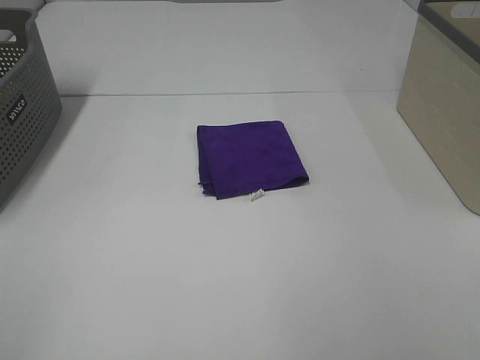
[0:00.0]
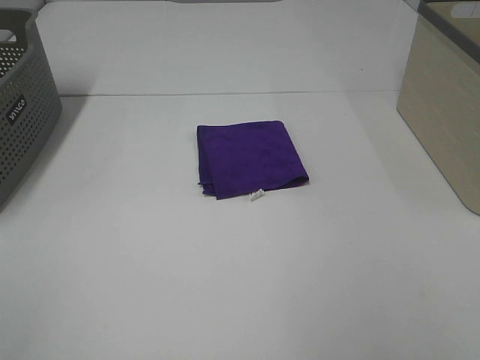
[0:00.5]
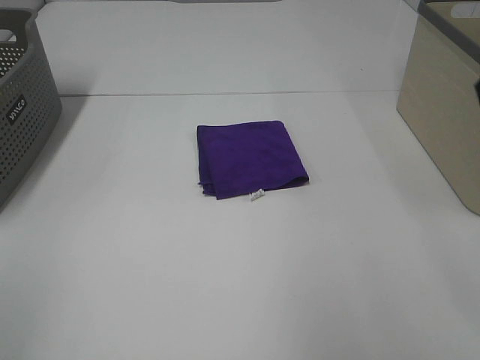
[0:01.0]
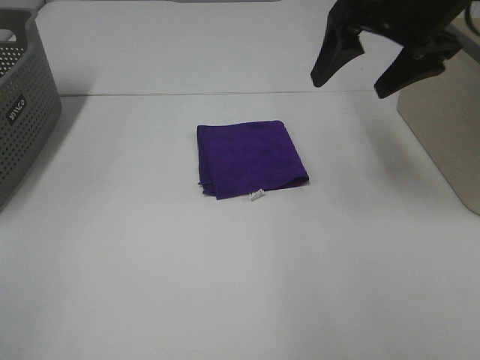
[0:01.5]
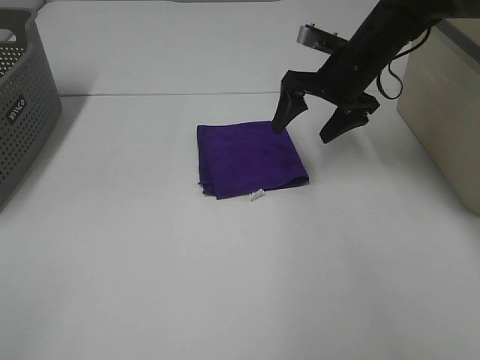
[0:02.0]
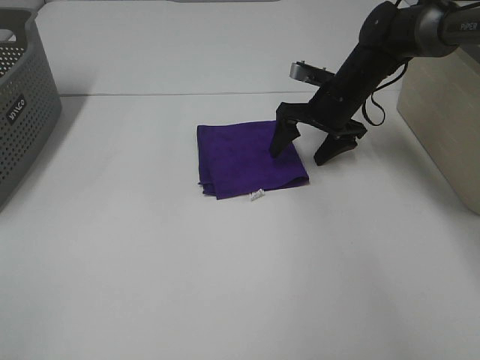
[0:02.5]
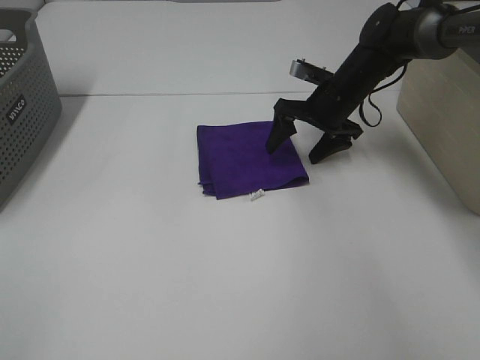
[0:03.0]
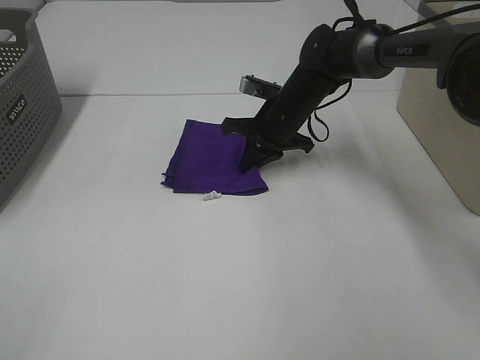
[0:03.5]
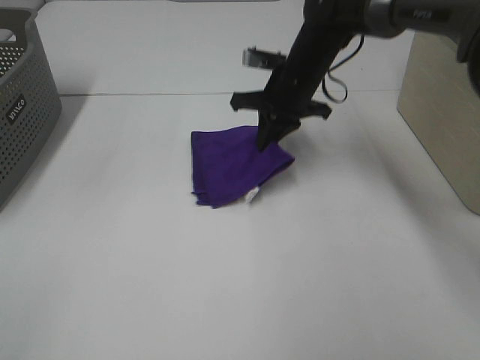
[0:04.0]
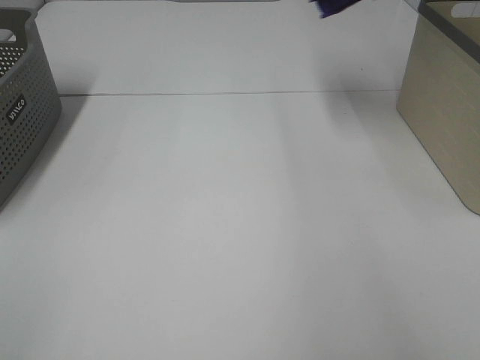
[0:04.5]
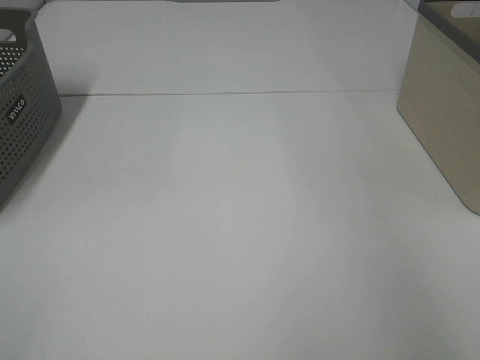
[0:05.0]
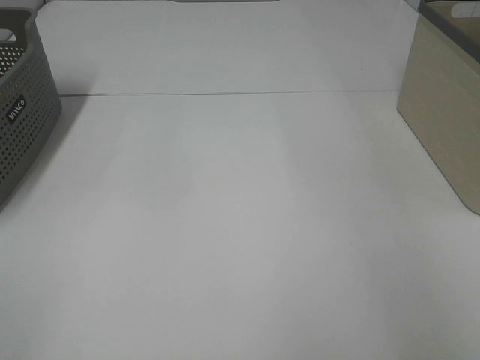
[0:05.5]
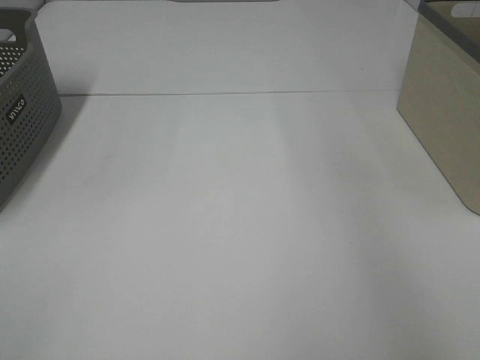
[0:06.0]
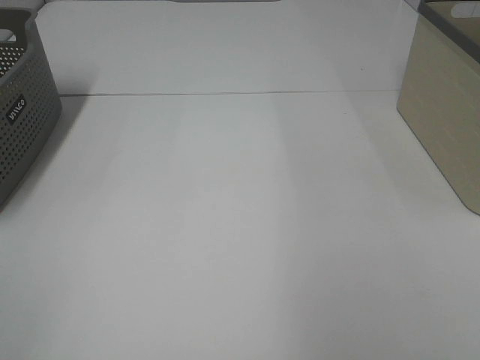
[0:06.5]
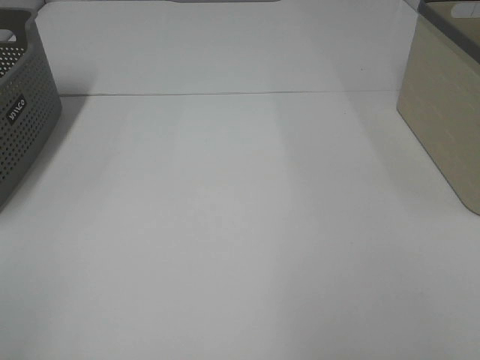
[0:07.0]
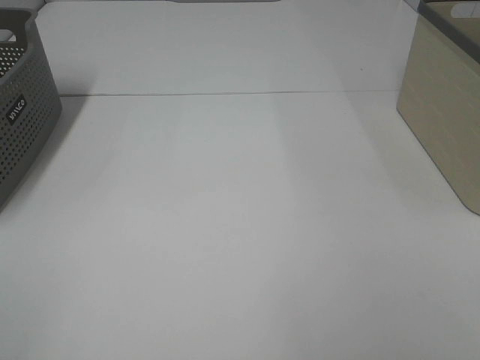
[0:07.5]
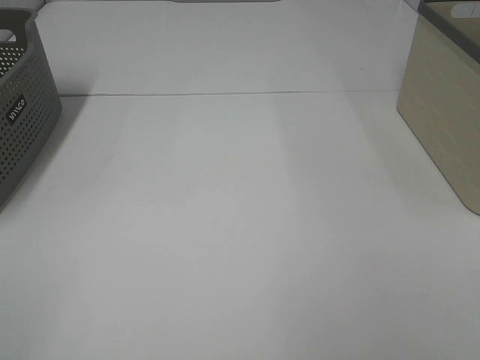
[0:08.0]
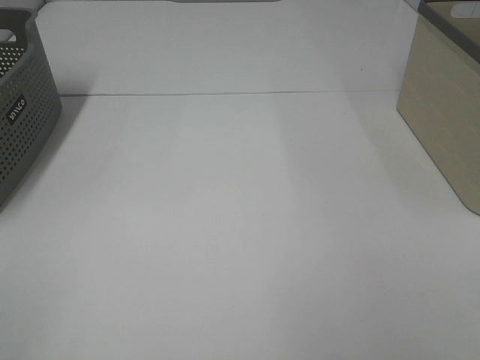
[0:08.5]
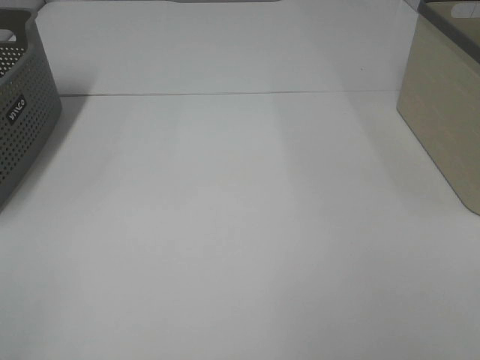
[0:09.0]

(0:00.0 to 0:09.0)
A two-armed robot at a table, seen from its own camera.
Step, 0:00.0 - 0:03.5: Right hand: grab the folded purple towel.
Step, 0:04.0 - 0:05.5: Right hand: place the purple towel in right basket.
0:00.0 - 0:02.0: The right gripper goes roughly 50 cm forward.
0:02.0 - 0:04.5: The right gripper heads upward, covering roughly 25 cm, and closes its fingers.
0:04.5 - 0:07.0: The right gripper heads backward, covering approximately 40 cm, and opens its fingers.

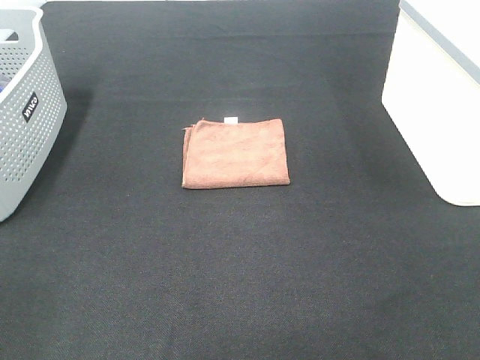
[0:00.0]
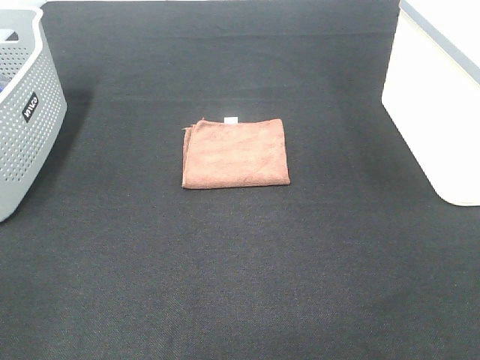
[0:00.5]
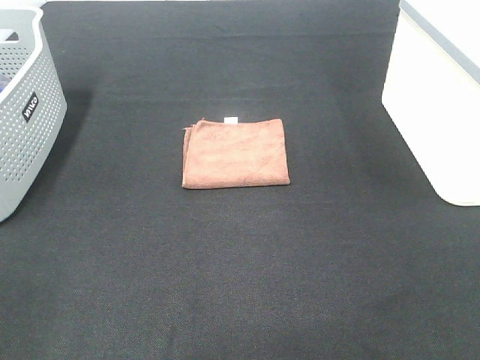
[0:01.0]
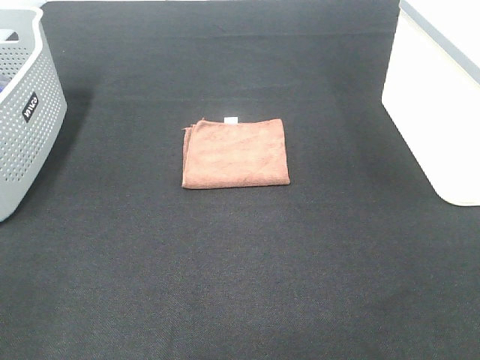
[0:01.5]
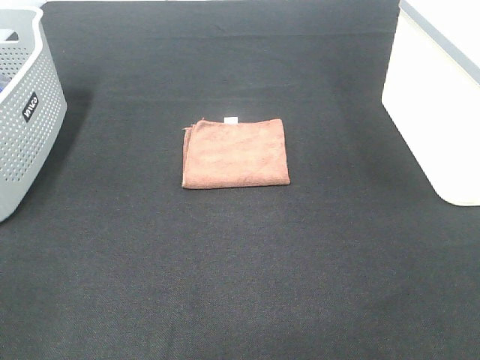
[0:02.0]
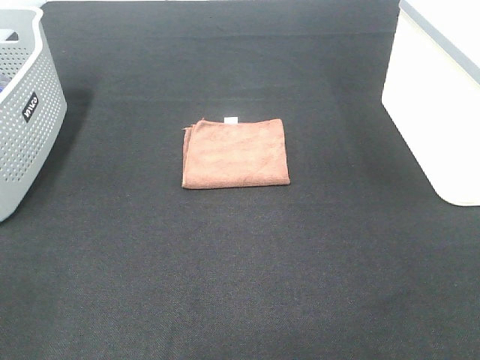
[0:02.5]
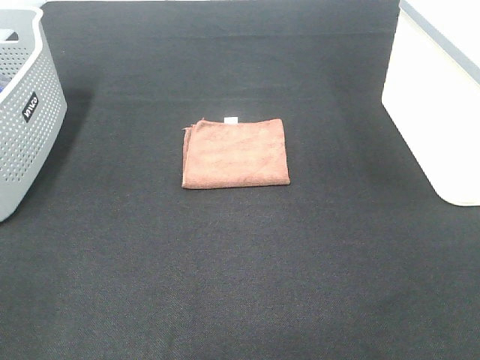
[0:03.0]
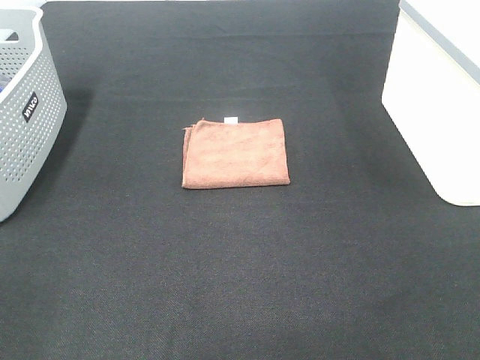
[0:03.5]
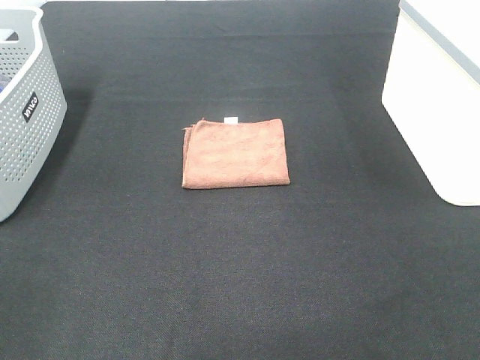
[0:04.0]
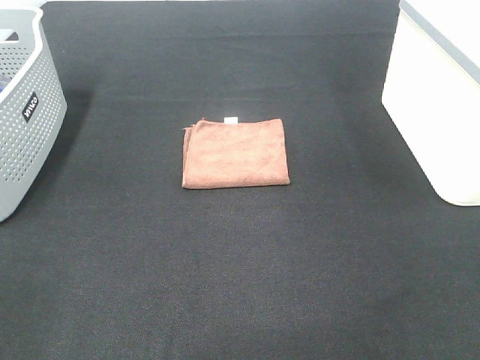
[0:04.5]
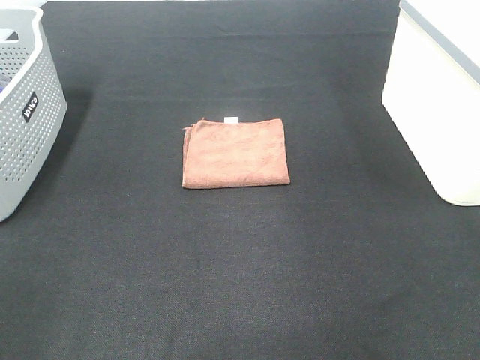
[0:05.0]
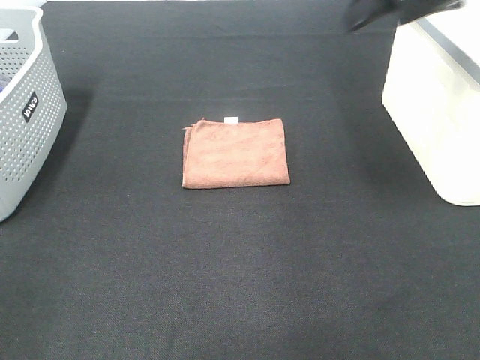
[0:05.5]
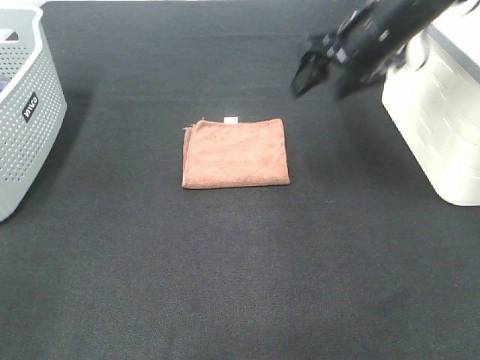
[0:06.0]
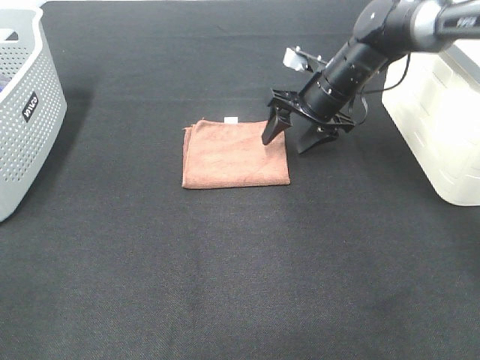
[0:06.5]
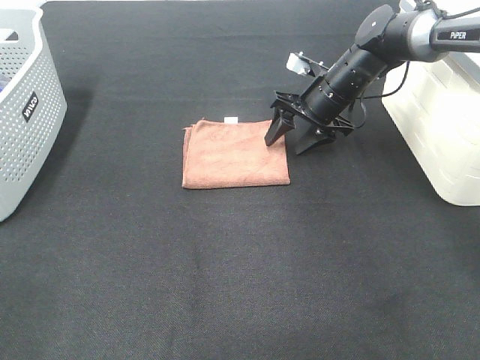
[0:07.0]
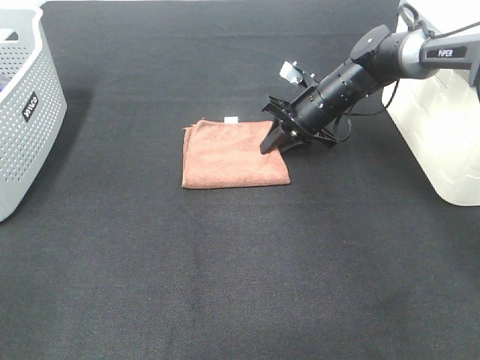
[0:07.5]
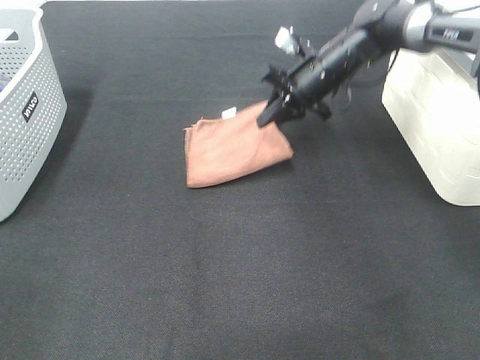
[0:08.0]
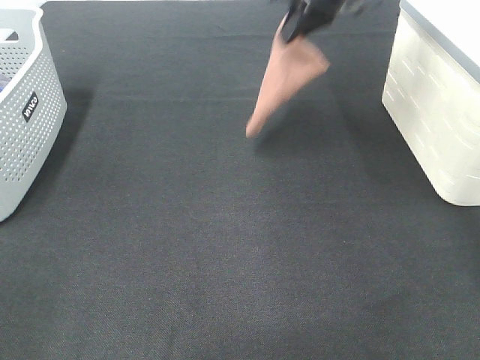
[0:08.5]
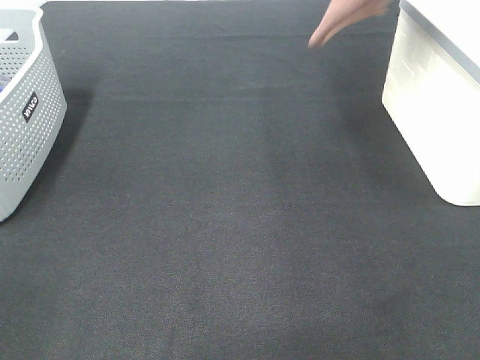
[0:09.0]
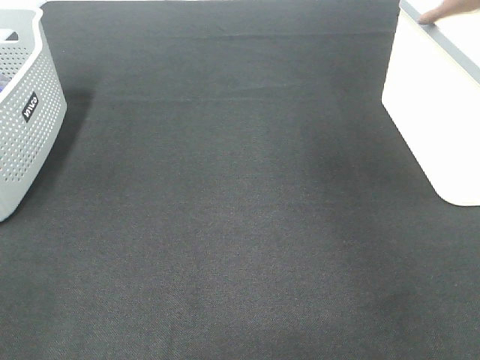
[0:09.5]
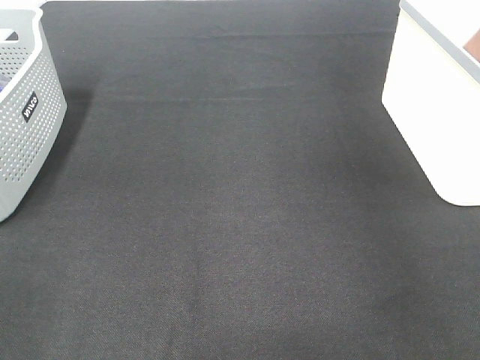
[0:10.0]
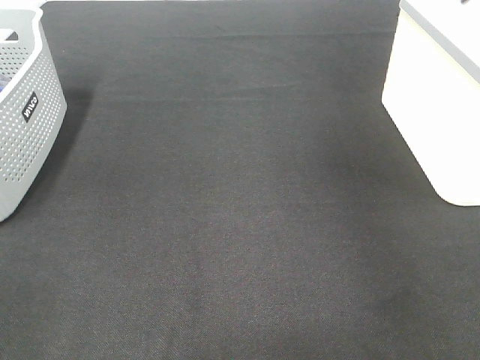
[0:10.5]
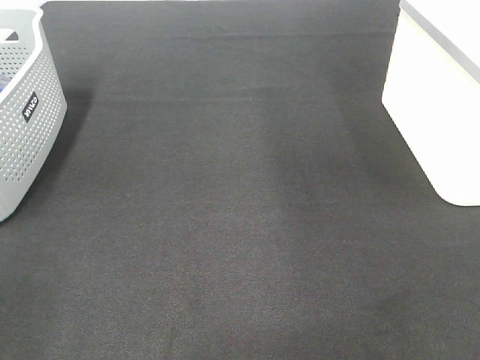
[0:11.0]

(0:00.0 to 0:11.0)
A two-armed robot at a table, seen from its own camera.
Step, 0:00.0 - 0:07.5: Right hand: grab the folded brown towel.
Step, 0:08.0 - 0:10.5: Right hand: place the brown towel in right basket.
0:00.0 - 0:03.5: Neither gripper changes place.
0:03.5 - 0:05.5: The right gripper shifts roughly 35 cm forward.
0:05.5 - 0:07.5: The right gripper travels downward and forward by about 30 cm, and closes up.
0:07.5 - 0:09.0: The right gripper shifts about 35 cm upward.
0:09.0 - 0:11.0: The right gripper travels to the right and back again, some 15 cm each way, and opens up.

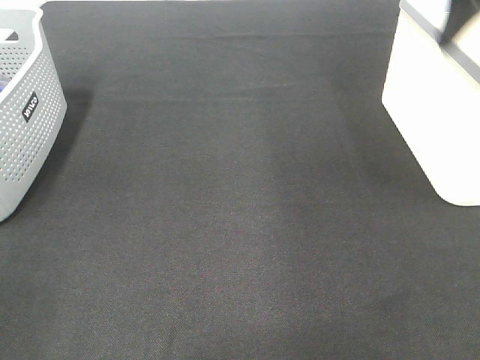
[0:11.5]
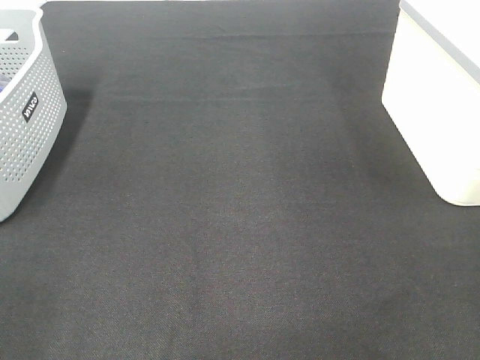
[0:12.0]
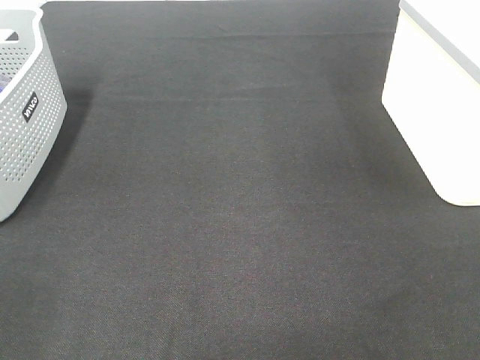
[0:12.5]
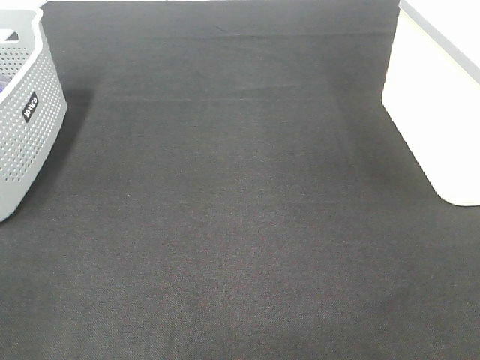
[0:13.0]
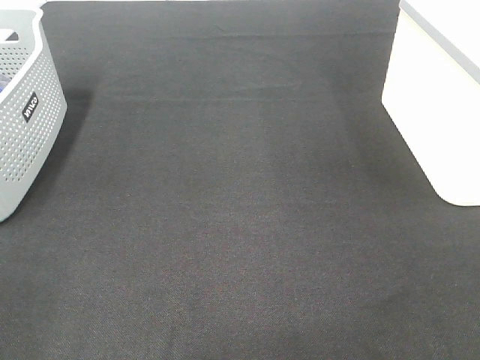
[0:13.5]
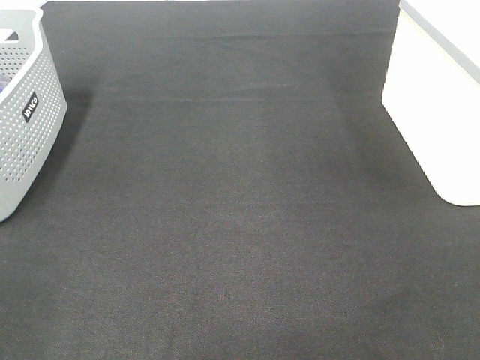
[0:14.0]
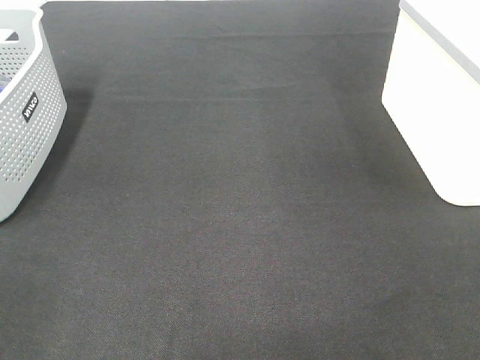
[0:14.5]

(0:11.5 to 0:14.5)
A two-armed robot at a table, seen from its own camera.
0:11.5 - 0:13.0: The right gripper moves backward, about 30 cm.

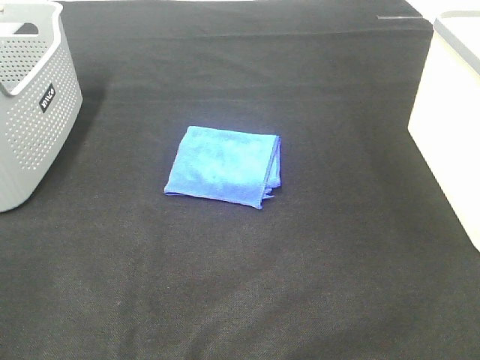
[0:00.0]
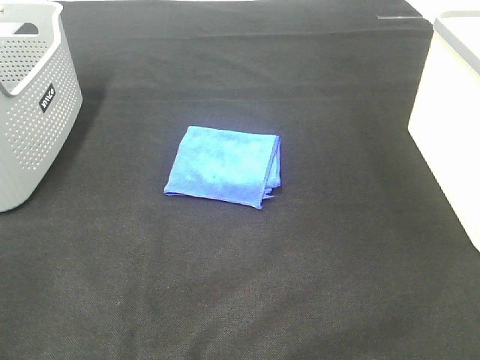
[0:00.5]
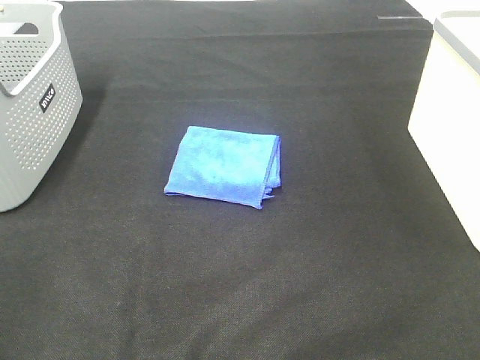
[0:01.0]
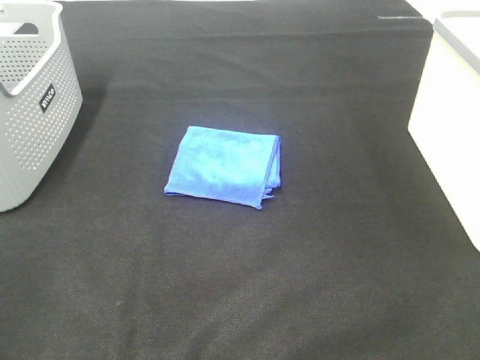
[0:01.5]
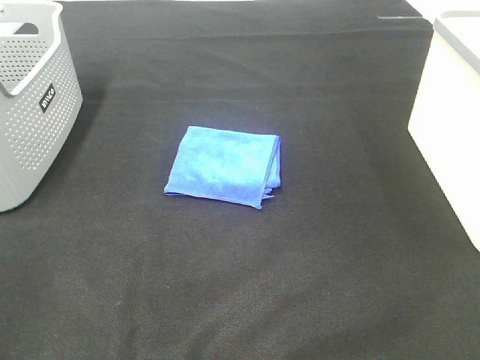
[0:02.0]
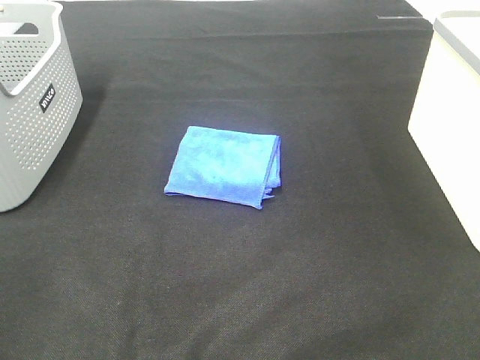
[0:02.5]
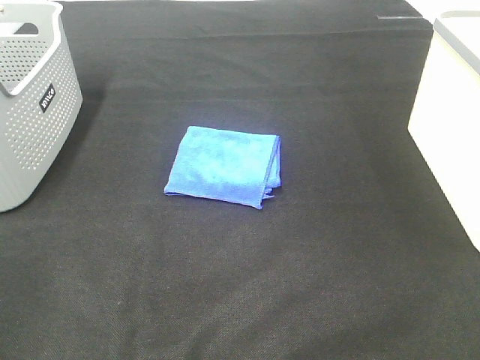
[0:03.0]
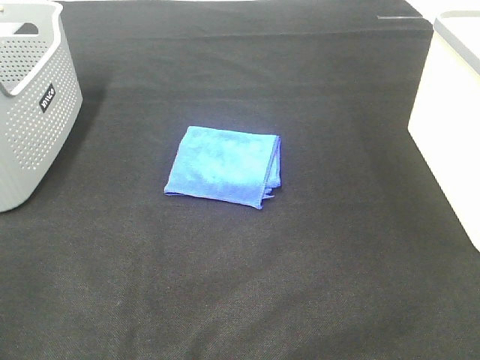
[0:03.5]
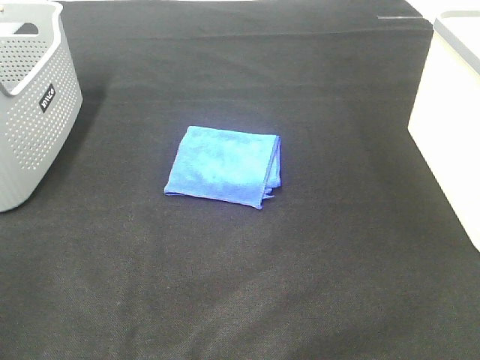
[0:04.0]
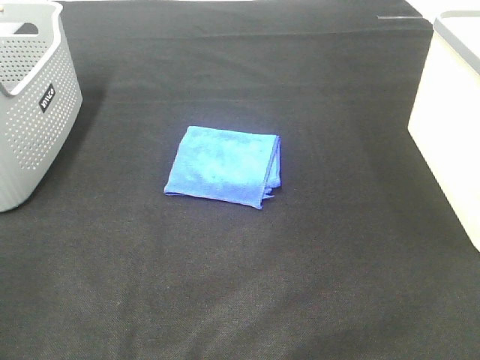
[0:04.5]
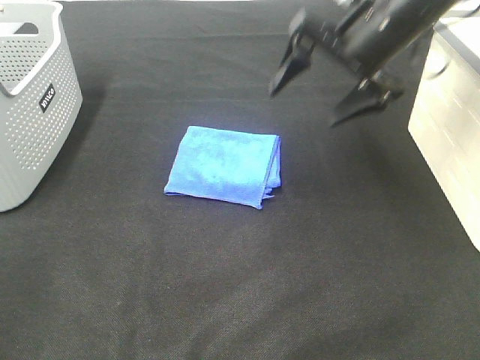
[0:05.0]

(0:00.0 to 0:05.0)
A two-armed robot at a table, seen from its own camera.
0:02.5 - 0:05.0: The right gripper shifts some 40 cm forward.
